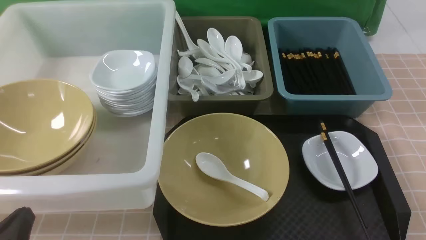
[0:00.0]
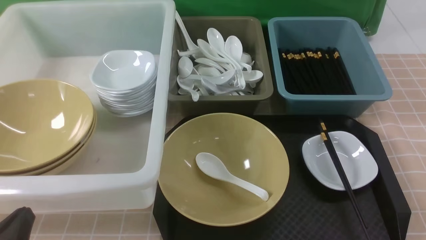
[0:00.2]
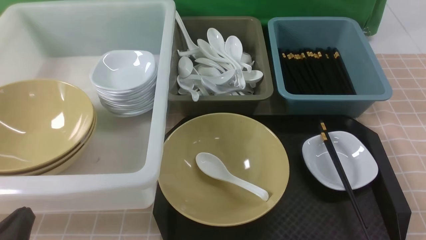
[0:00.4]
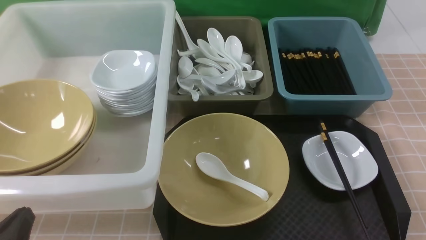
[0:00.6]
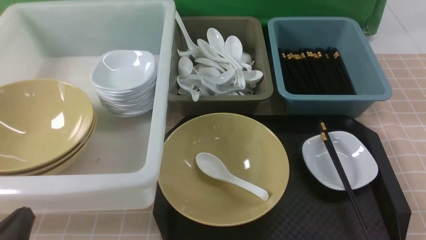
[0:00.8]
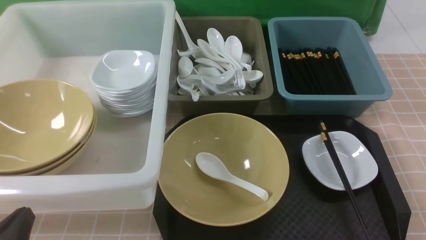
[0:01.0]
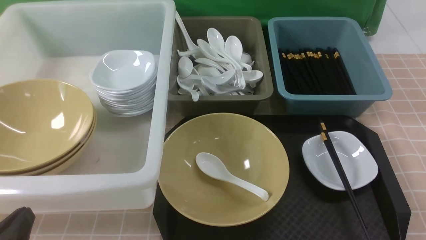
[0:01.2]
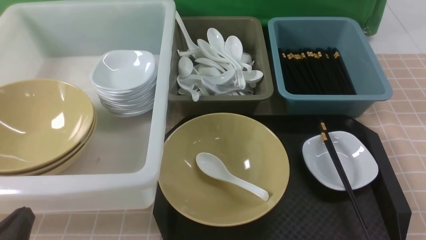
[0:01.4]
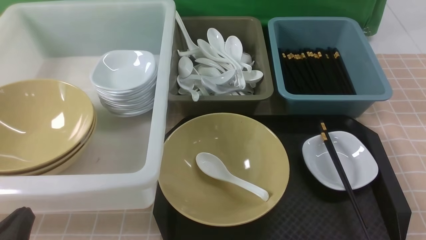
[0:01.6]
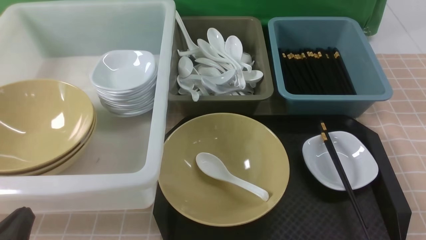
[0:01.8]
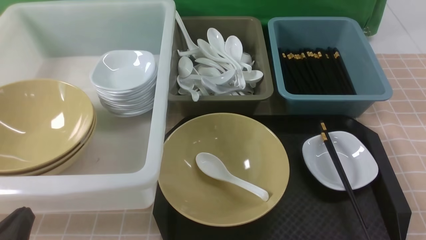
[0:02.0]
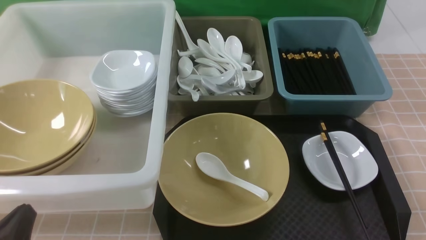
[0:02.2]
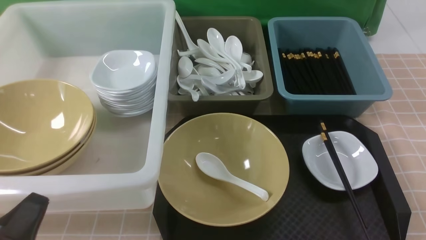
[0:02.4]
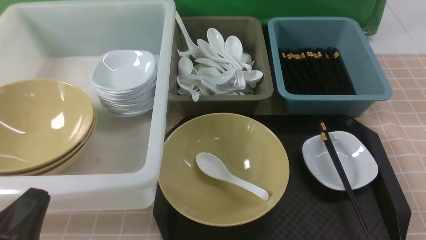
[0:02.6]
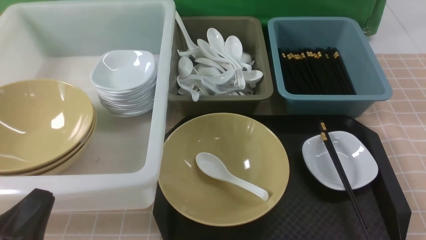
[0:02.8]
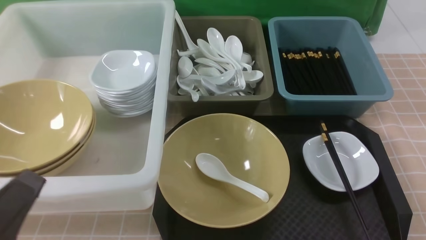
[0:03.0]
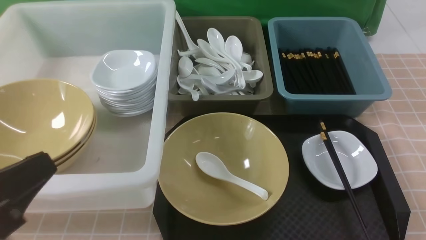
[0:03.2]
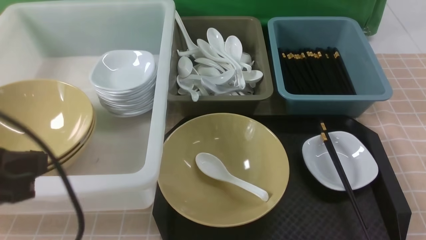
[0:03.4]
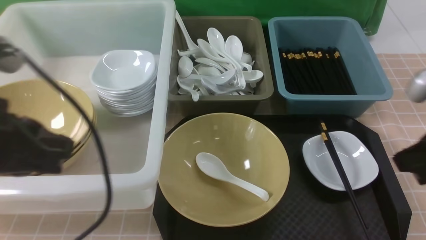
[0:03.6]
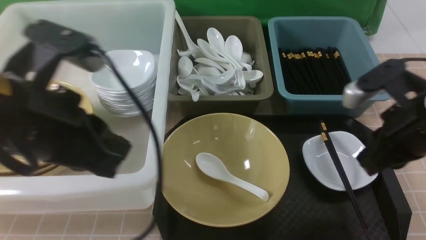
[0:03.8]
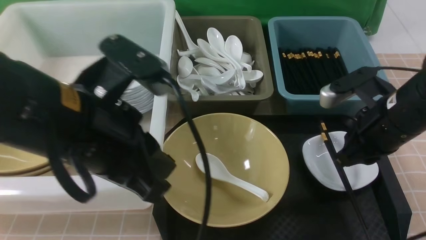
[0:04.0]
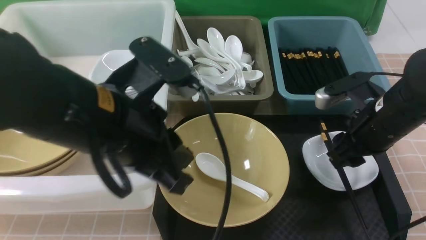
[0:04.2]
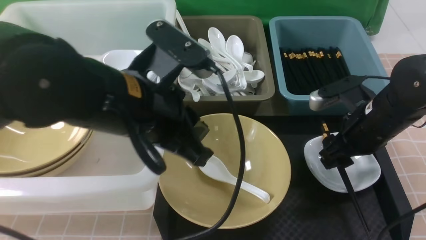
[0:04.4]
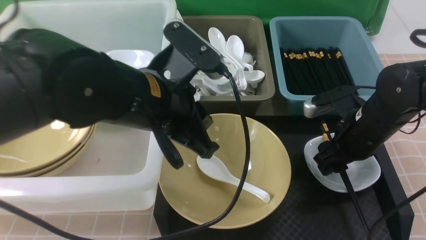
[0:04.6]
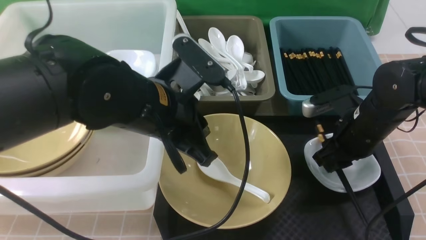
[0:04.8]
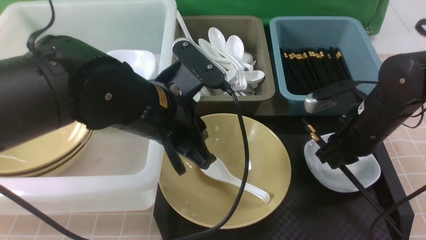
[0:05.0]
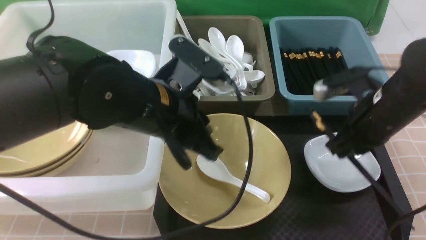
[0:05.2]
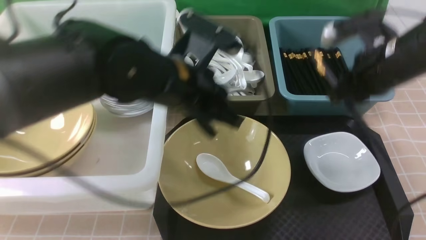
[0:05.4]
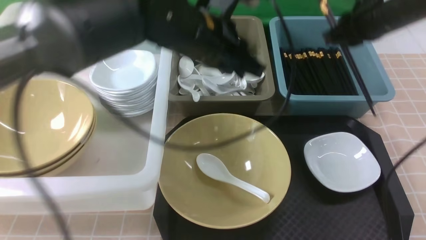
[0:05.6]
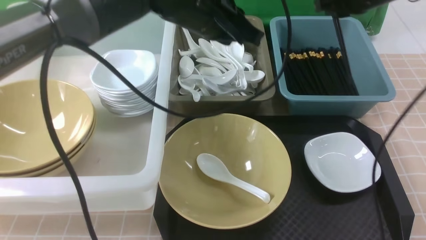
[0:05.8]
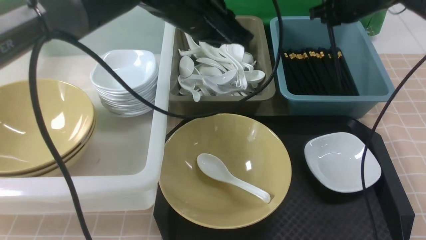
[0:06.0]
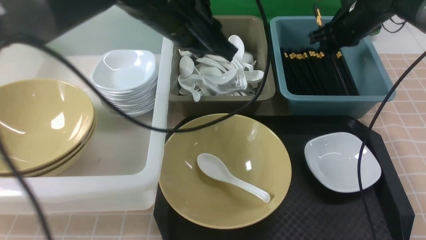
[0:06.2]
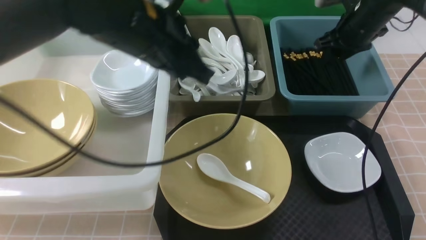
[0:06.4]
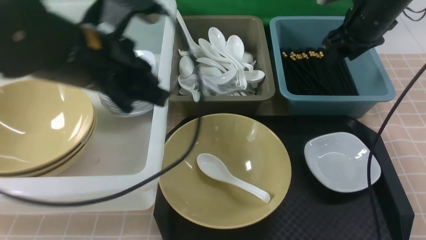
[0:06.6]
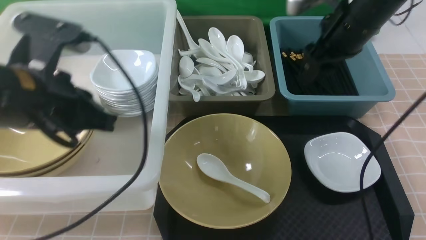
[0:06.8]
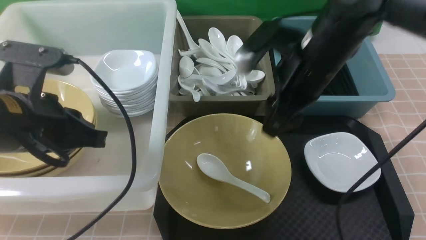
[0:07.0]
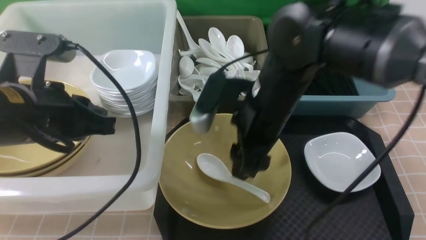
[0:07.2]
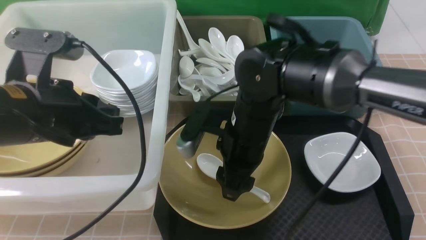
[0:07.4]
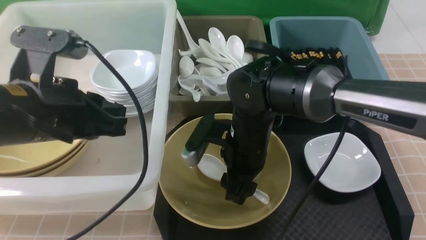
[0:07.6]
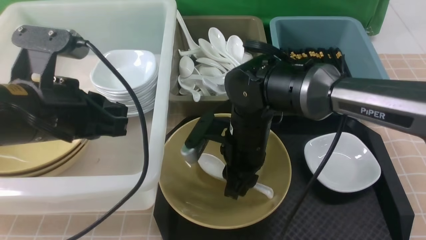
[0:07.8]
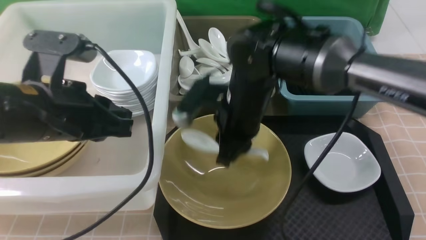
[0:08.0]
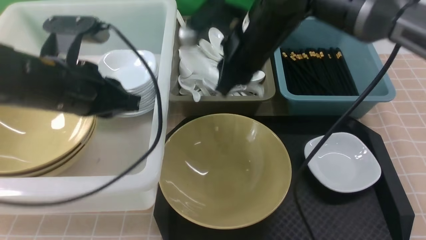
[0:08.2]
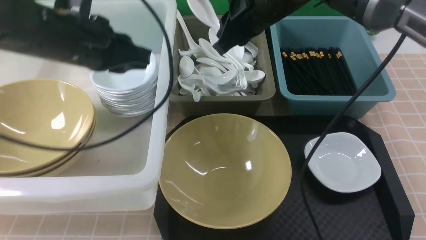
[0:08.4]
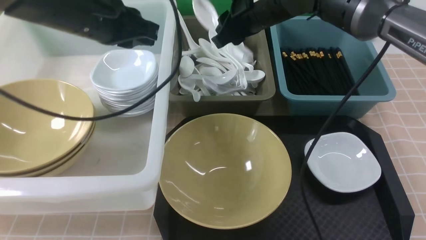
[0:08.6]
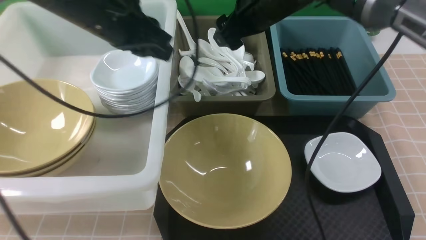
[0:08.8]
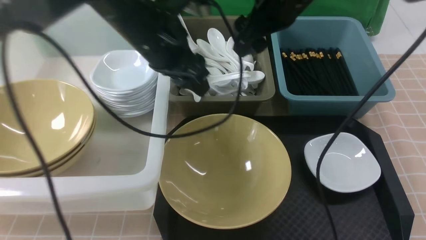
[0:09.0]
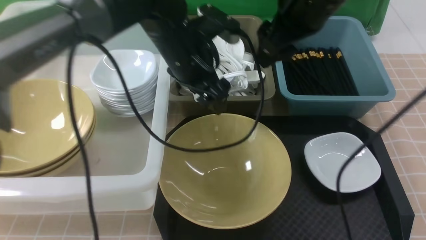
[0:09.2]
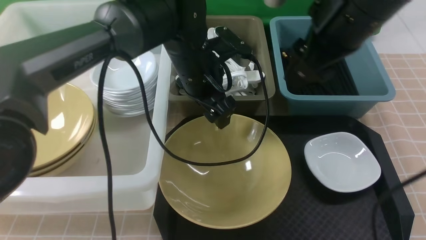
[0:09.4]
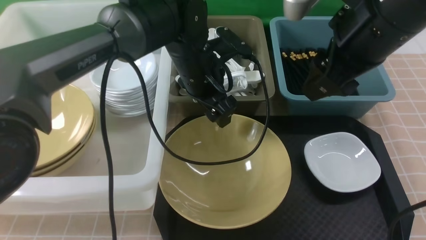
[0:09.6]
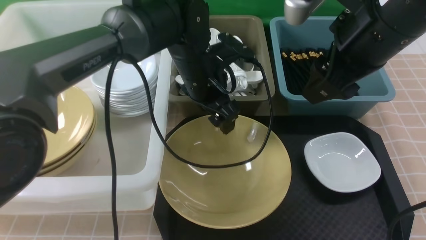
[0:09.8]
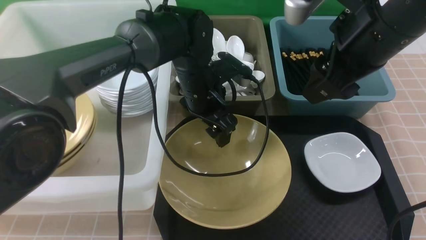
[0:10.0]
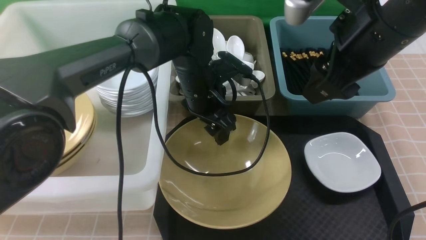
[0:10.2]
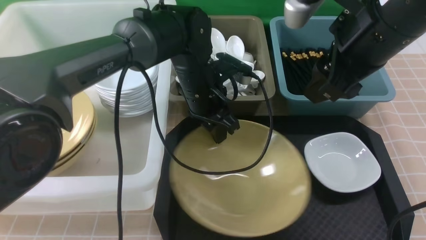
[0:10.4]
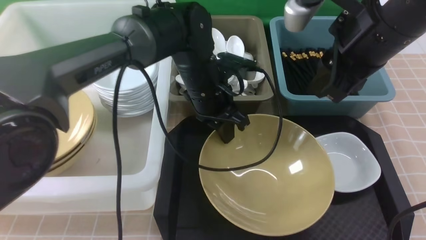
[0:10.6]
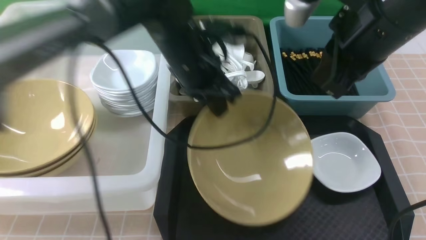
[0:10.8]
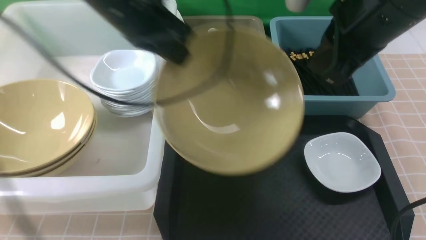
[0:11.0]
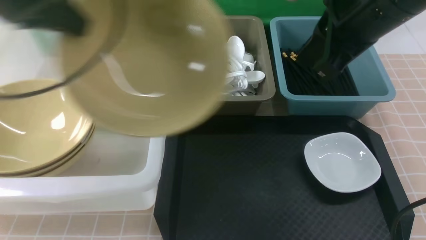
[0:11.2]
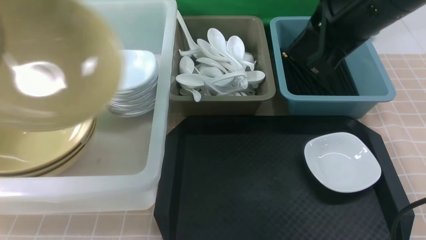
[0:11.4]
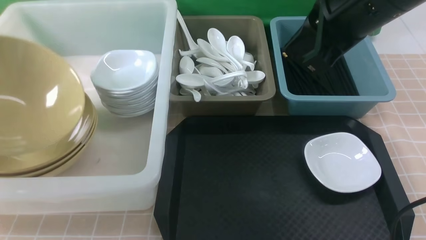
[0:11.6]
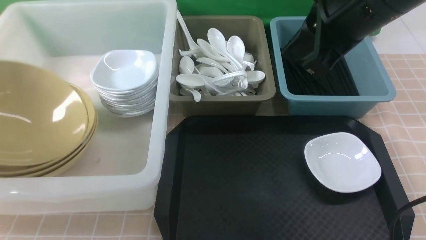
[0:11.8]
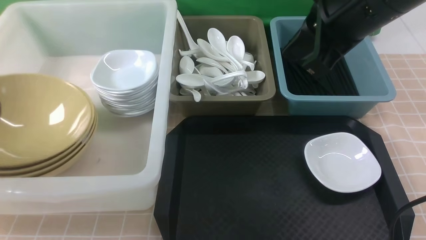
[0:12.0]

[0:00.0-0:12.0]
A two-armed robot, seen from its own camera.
Task of the whole recording: on brown table put chopsticks spoon bowls plates into blue grey white boxes.
Step, 0:00.0 to 0:05.0: use the right arm to grab the chopsticks.
Step, 0:05.2 to 0:06.4: use the right arm to put the chopsticks into the small storage box on the right.
Step, 0:06.8 to 0:08.0: use the right arm to grab the soup spoon in the middle.
Step, 0:08.2 to 0:08.8: use the right arm to put the soup spoon into the small storage box in the middle.
Step, 0:09.0 to 0:10.8: use the left arm to grab the yellow noodle bowl on the left.
0:00.0 to 0:01.6: Both grippers stay about where they are.
0:01.6 to 0:03.0: The right gripper shifts by approximately 5 cm; the left gripper goes about 10 cm upward.
0:03.0 to 0:04.4: The left gripper travels forward and to the right by roughly 20 cm; the right gripper travels forward by about 25 cm, and opens its fingers.
0:04.4 to 0:06.0: Both grippers travel together forward, about 15 cm. The right gripper closes up.
0:06.0 to 0:07.6: Both grippers travel together to the left and backward, approximately 25 cm. The right gripper opens its fingers.
0:07.6 to 0:09.0: The left gripper moves forward and to the right, some 20 cm, and opens its fingers. Meanwhile the right gripper shifts about 20 cm upward, forward and to the right, and closes, then opens again.
0:09.0 to 0:10.4: The right gripper is displaced backward and to the right by roughly 10 cm, while the left gripper moves downward and to the right, roughly 10 cm, and closes its fingers.
0:10.4 to 0:12.0: The left gripper moves to the left, some 40 cm. Meanwhile the right gripper closes up.

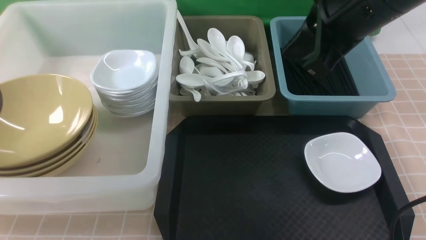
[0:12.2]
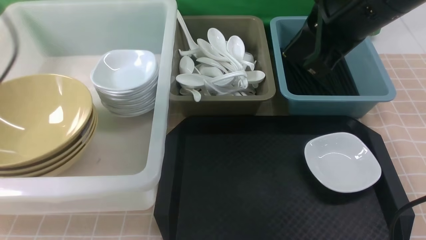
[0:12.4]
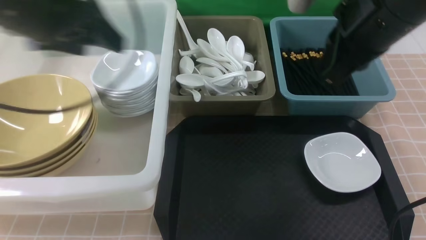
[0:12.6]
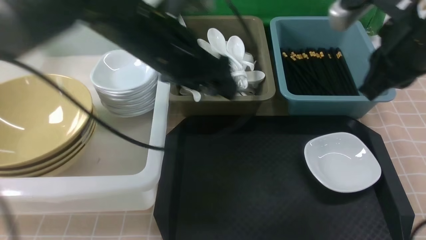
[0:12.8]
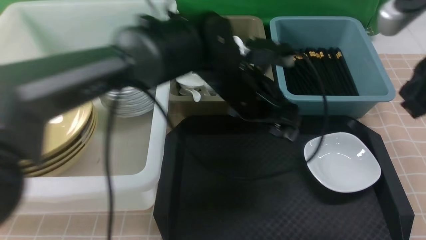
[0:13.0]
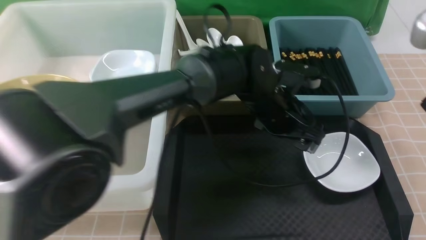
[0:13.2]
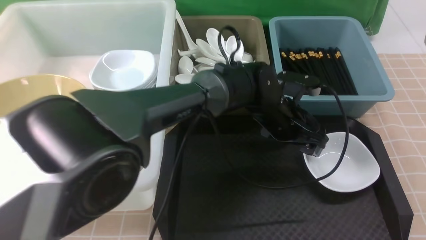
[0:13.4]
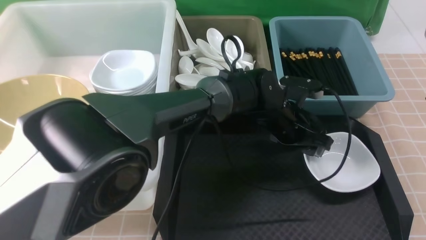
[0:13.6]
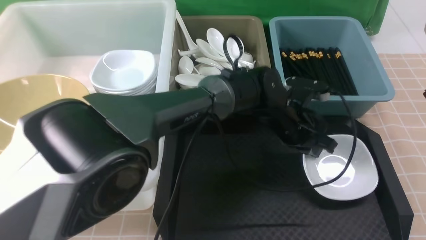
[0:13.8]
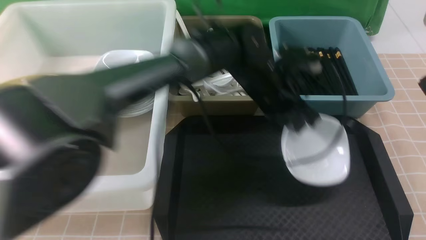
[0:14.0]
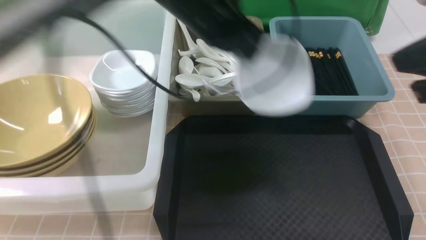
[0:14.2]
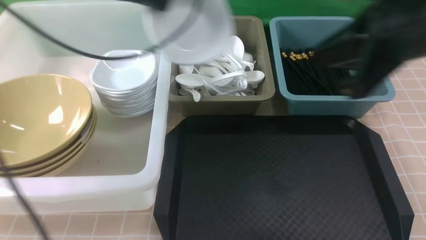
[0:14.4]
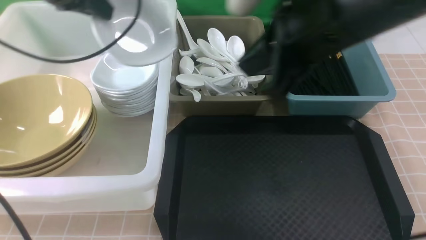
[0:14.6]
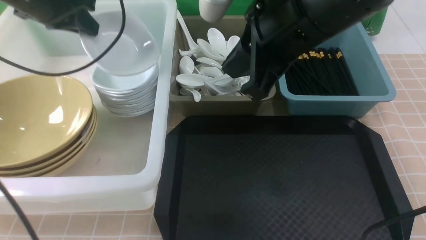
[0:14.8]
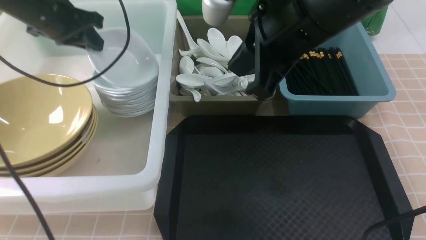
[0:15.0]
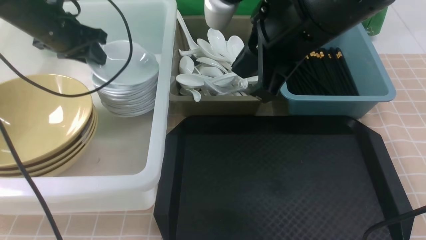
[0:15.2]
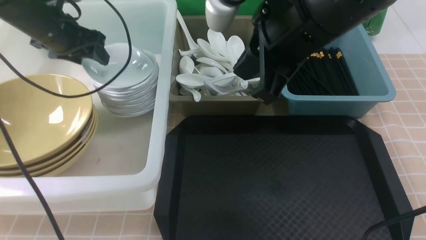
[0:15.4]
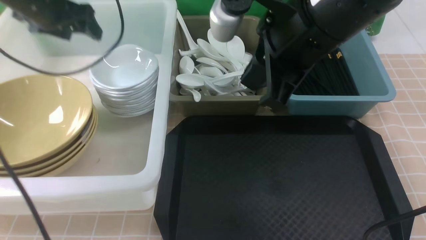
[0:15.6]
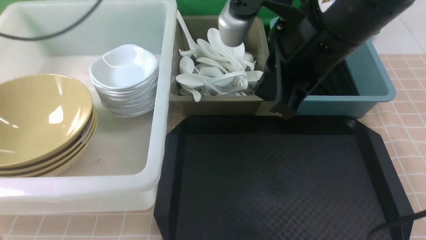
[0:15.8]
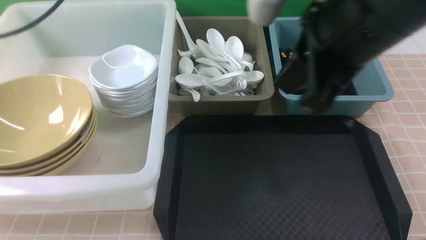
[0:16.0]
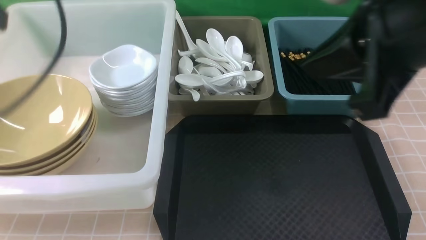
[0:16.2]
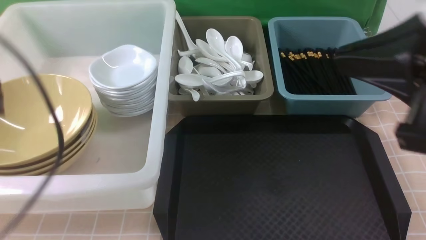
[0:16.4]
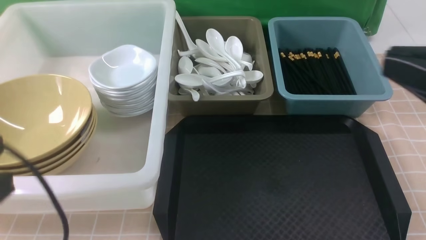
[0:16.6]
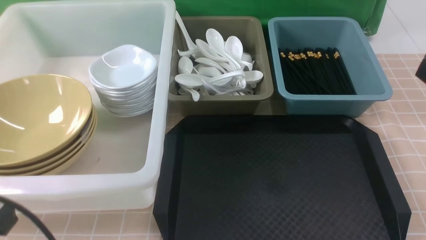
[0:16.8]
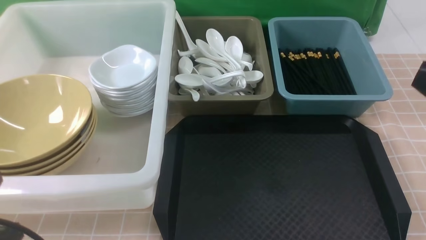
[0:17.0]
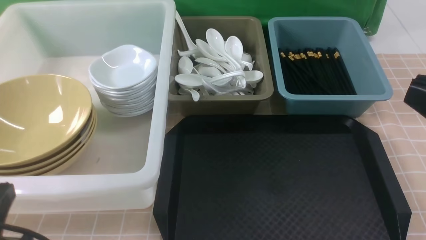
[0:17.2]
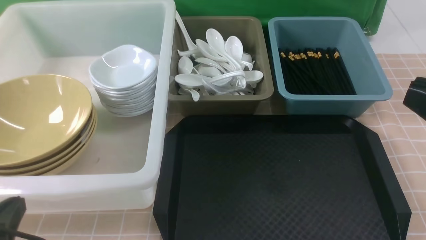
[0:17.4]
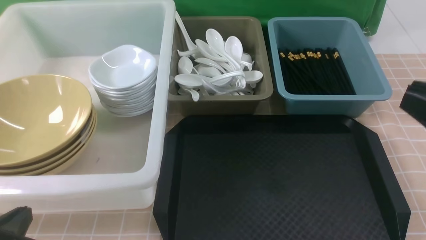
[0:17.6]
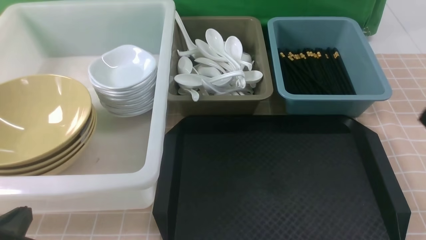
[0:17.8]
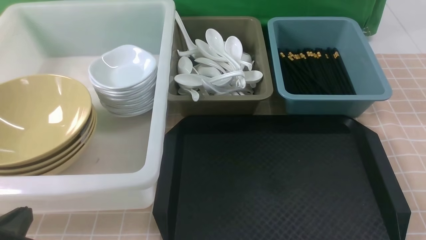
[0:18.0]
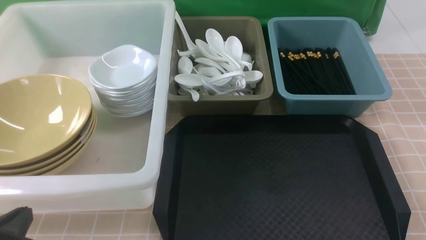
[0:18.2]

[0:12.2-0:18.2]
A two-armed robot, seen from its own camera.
Task of the whole recording: on brown table put chopsticks spoon bowls plates into blue grey white boxes.
Step, 0:12.6 to 0:13.8: use the left arm to grab the plate.
Step, 0:14.2 to 0:15.6: use the left arm to put the plate into the large storage box on the left.
0:12.2 to 0:13.8: The left gripper moves to the right, approximately 50 cm, and closes up; the right gripper moves to the right and backward, approximately 15 cm.
0:13.8 to 0:15.2: The left gripper moves to the left, approximately 35 cm; the right gripper moves to the left and forward, about 20 cm.
0:15.2 to 0:16.6: The left gripper moves backward, about 35 cm, and closes. Meanwhile the right gripper is displaced backward and to the right by roughly 20 cm.
0:16.6 to 0:18.2: The left gripper goes approximately 10 cm downward, while the right gripper is displaced downward and to the right by about 20 cm.
